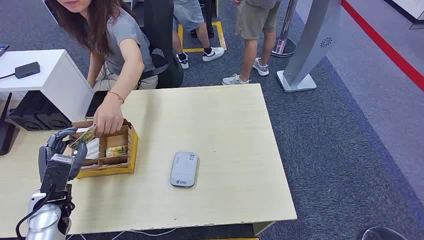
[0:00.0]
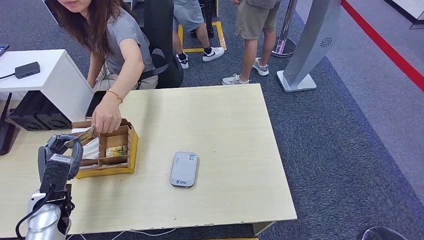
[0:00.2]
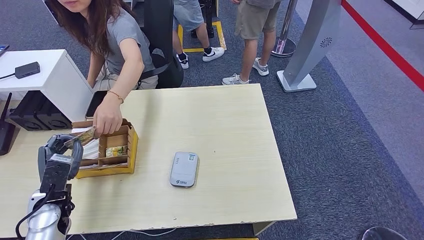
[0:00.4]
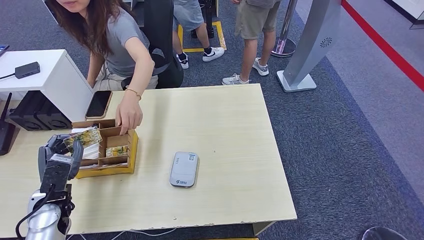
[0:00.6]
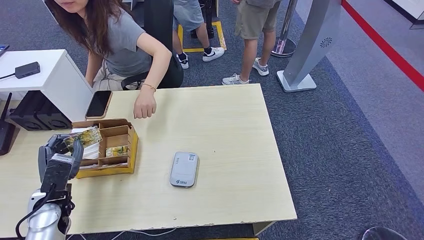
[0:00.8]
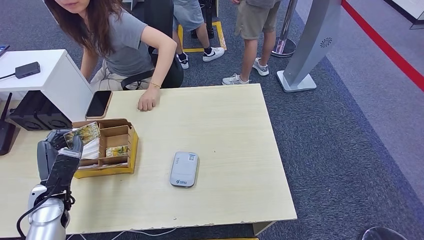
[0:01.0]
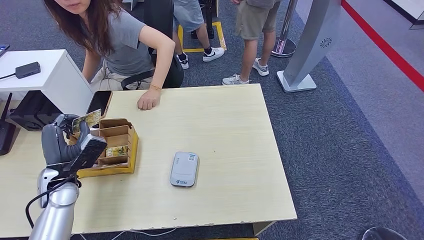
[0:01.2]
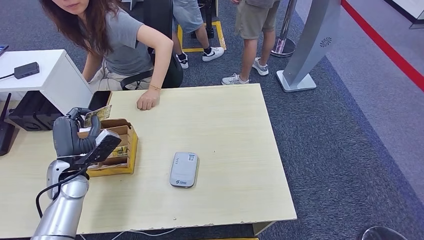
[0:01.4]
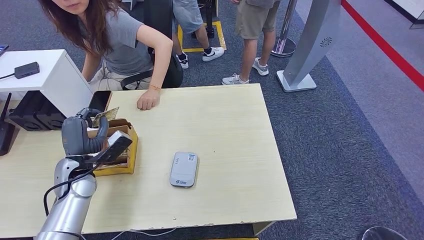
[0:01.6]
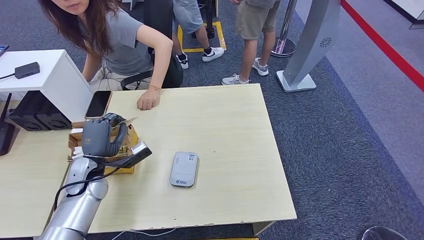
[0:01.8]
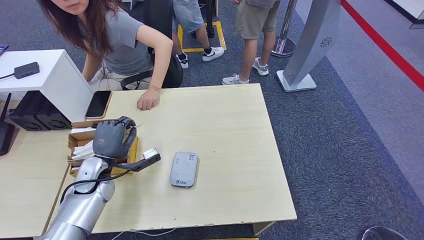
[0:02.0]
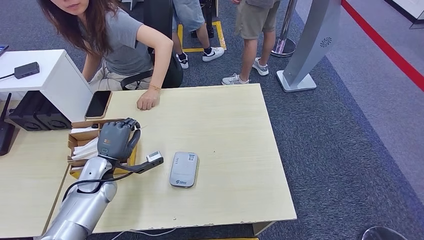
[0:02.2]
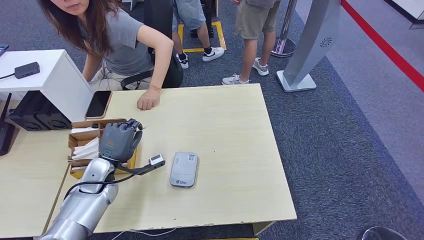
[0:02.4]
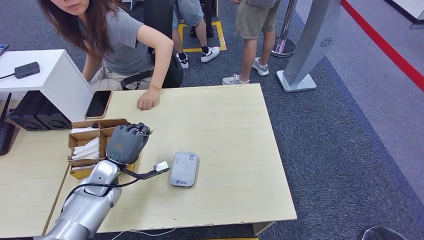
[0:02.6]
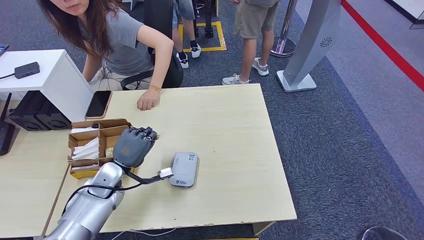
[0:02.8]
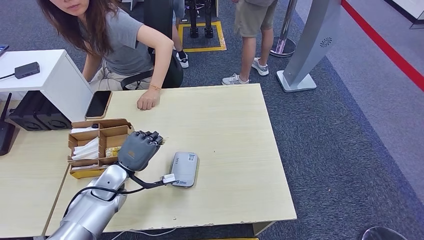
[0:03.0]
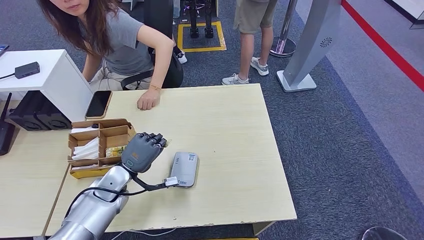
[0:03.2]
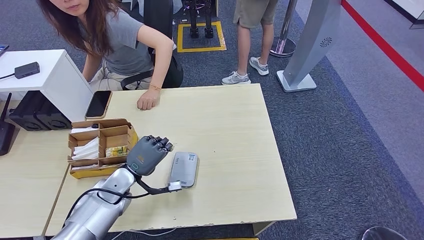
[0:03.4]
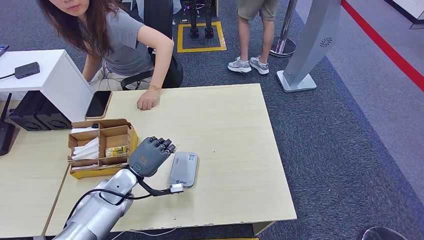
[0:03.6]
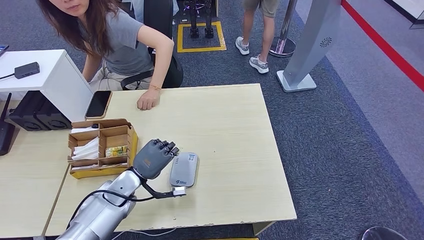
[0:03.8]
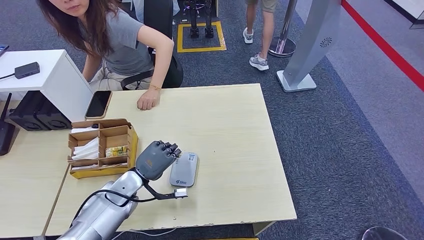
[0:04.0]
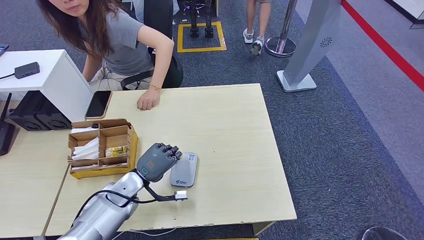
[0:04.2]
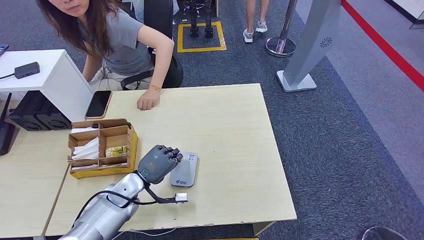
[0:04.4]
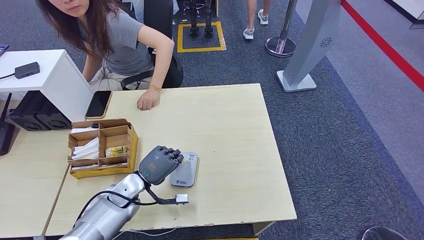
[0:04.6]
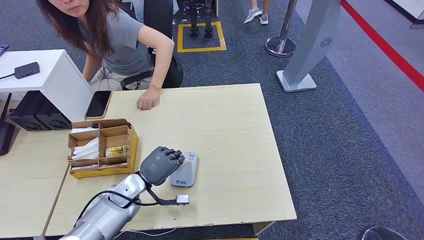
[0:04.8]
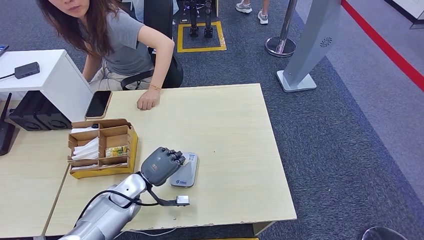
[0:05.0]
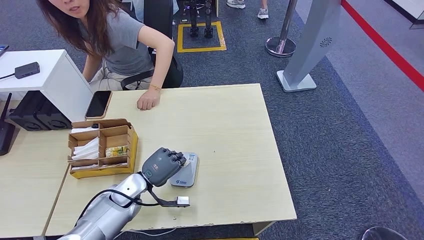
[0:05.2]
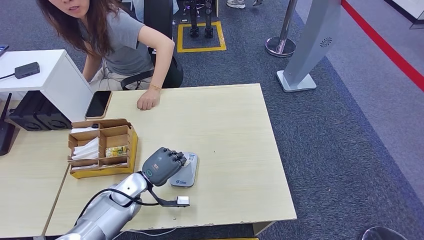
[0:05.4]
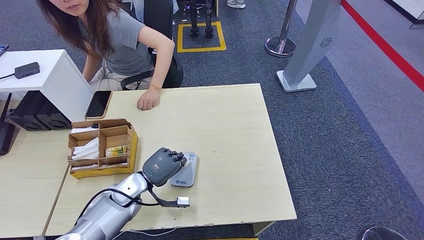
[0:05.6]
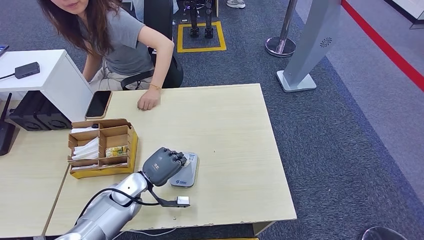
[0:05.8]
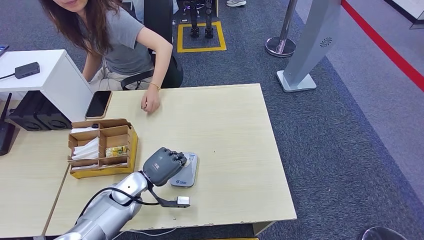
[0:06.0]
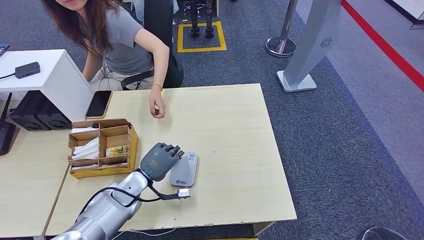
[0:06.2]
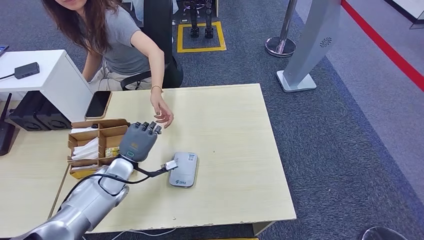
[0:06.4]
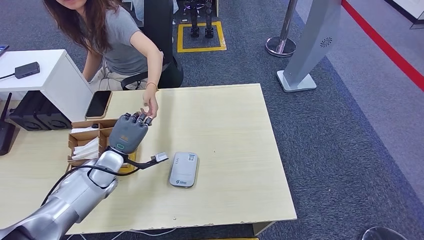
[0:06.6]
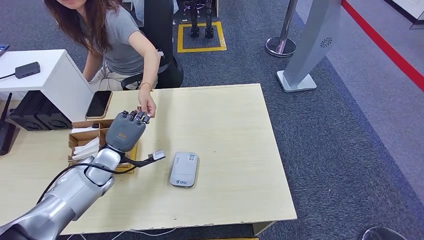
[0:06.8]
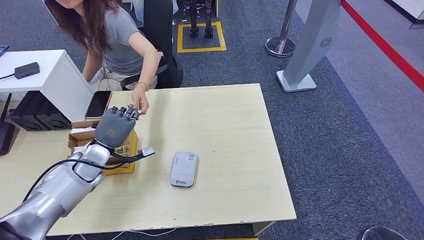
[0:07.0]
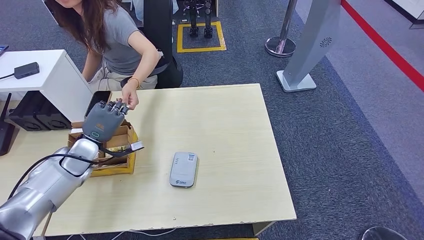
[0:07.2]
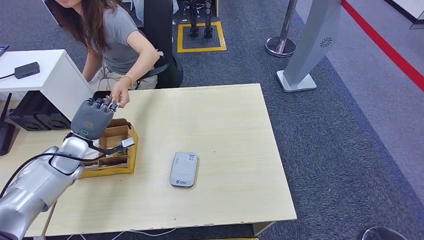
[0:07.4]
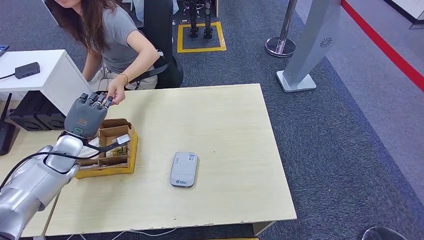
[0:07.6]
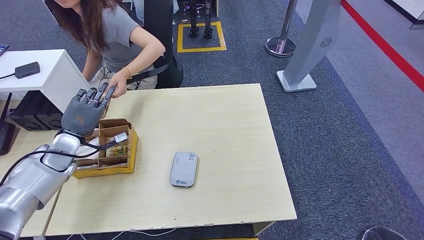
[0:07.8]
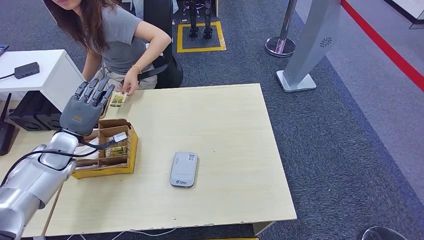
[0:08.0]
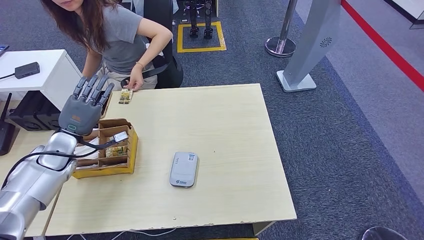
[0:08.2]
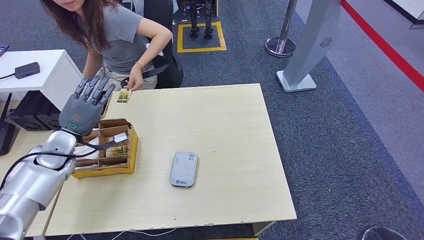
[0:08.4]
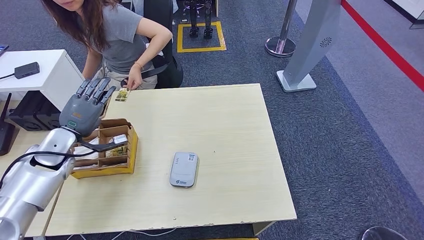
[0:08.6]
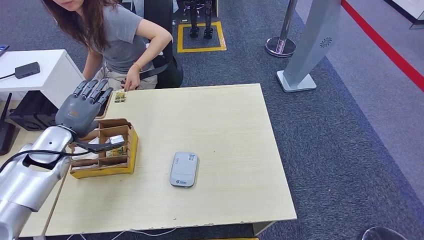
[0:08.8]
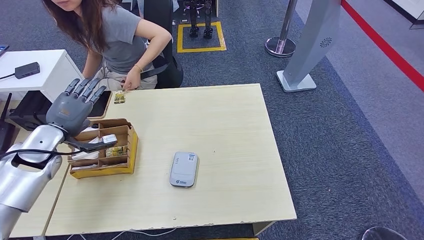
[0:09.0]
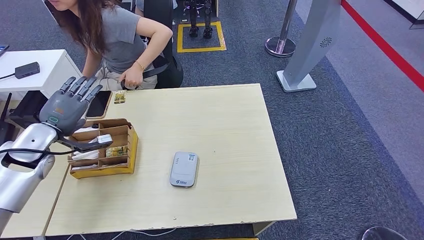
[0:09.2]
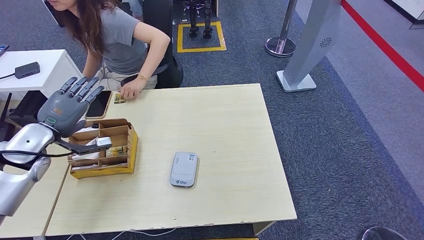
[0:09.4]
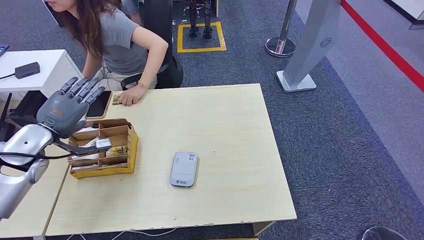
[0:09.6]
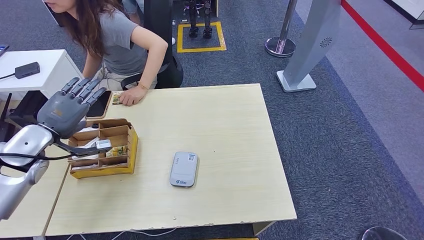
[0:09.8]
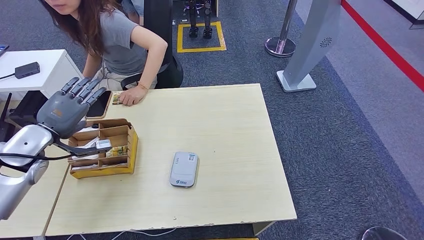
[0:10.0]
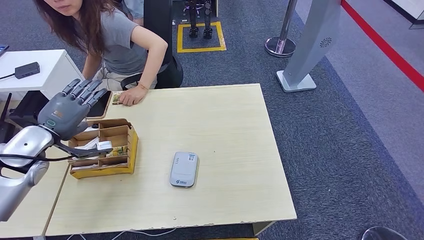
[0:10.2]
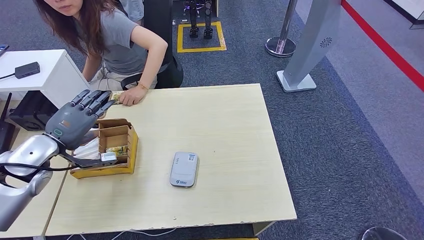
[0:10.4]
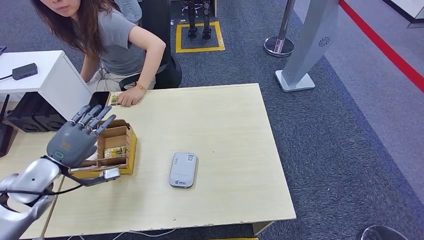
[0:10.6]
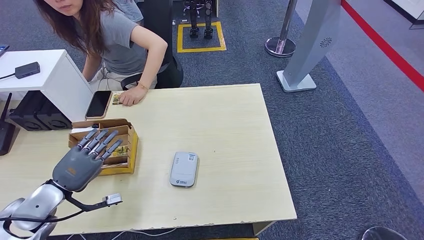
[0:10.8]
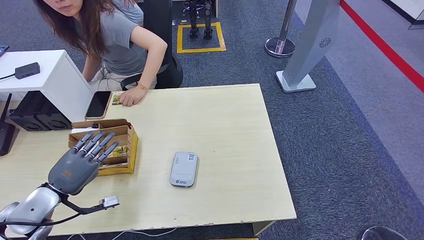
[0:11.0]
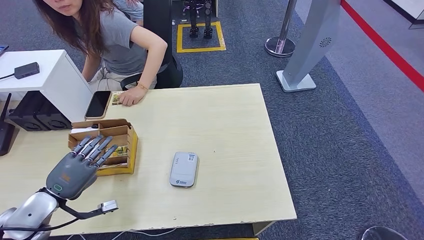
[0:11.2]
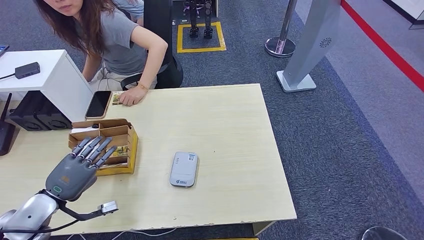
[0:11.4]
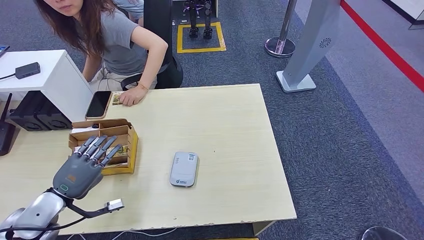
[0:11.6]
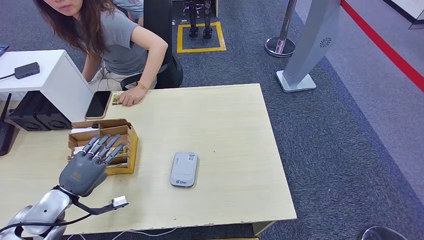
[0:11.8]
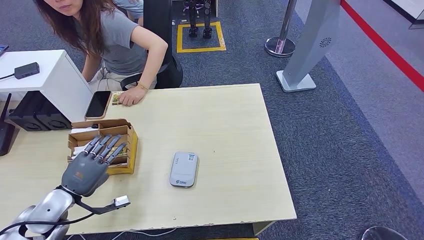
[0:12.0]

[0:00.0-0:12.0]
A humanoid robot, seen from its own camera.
Step, 0:00.0 to 0:00.8: Take the ID card from the person's hand.
Step, 0:02.4 to 0:05.4: Place the ID card on the card reader.
Step, 0:06.4 to 0:09.2: Hand the ID card to the person.
0:01.6 to 0:03.0: The left hand is displaced to the right by roughly 10 cm.
0:03.0 to 0:04.4: The hands make only small movements.
0:04.4 to 0:06.0: The hands make only small movements.
0:06.0 to 0:07.6: The left hand shifts roughly 20 cm to the left, upward and forward.
0:07.6 to 0:09.0: The left hand moves upward, about 5 cm.
0:09.0 to 0:10.4: The hands move only a little.
0:10.4 to 0:12.0: The left hand shifts approximately 15 cm downward and backward.

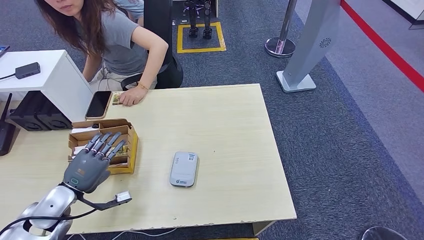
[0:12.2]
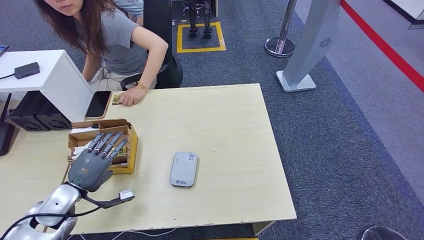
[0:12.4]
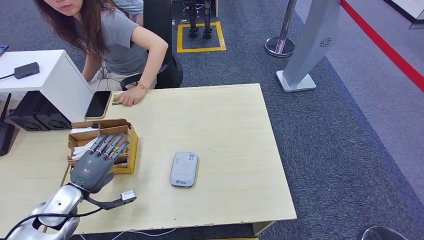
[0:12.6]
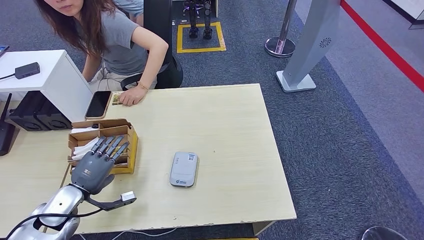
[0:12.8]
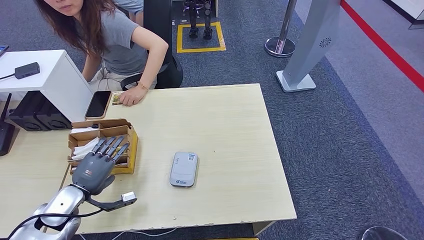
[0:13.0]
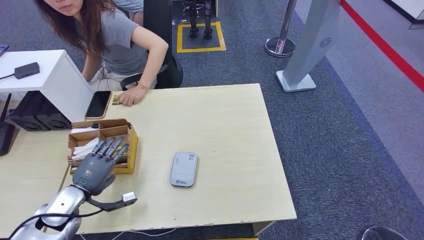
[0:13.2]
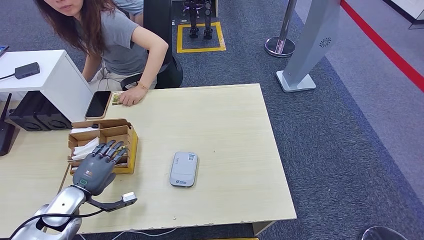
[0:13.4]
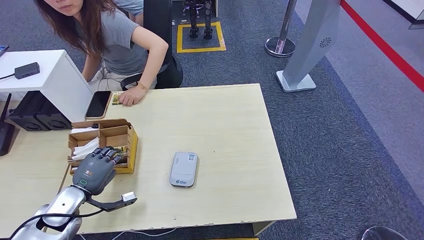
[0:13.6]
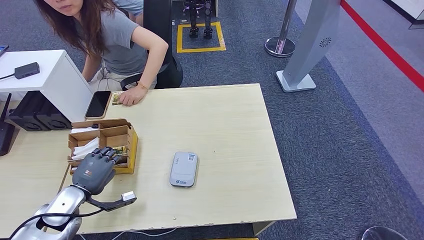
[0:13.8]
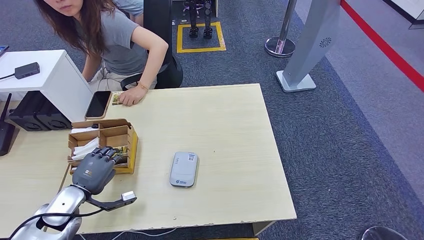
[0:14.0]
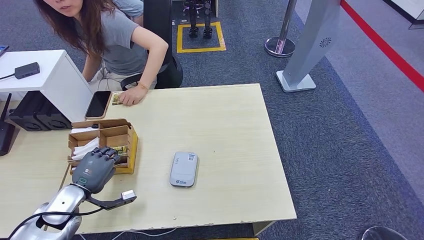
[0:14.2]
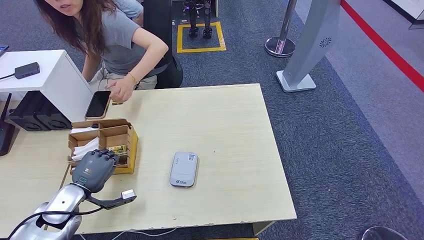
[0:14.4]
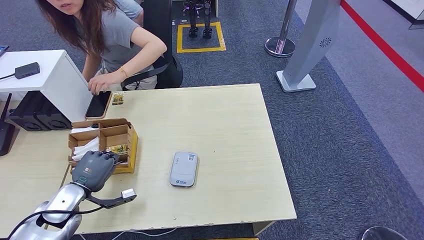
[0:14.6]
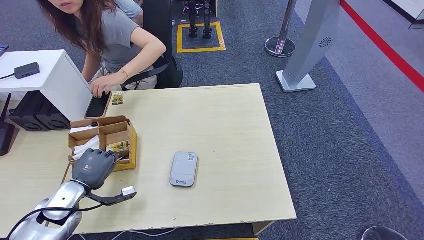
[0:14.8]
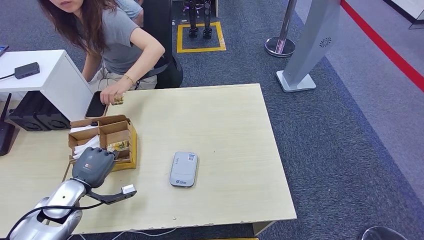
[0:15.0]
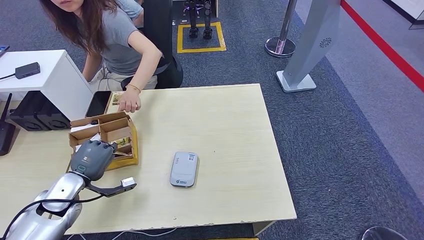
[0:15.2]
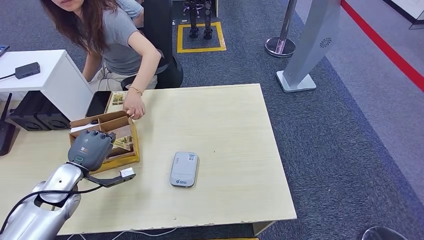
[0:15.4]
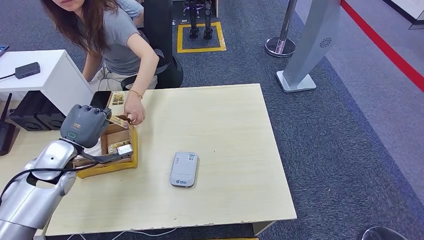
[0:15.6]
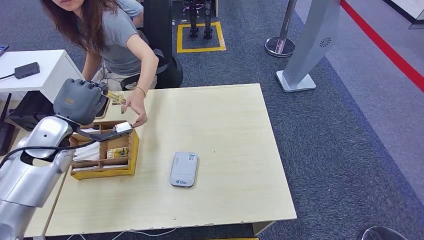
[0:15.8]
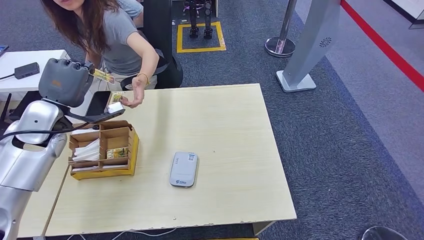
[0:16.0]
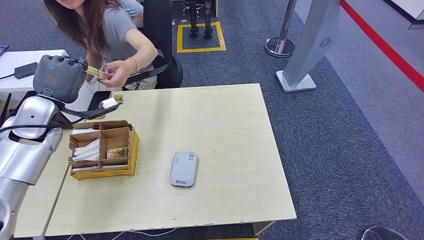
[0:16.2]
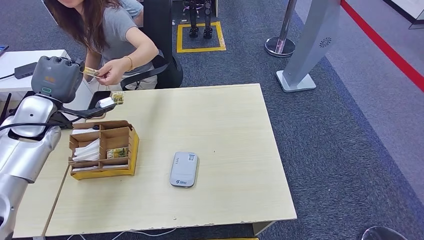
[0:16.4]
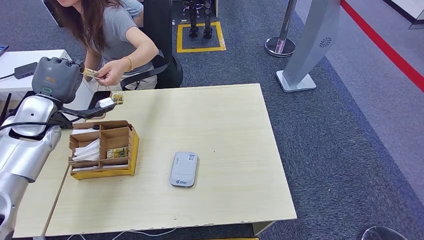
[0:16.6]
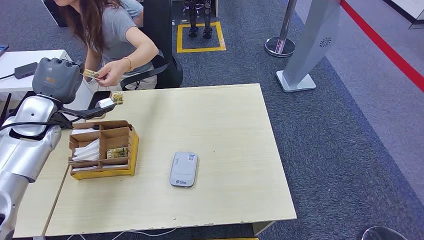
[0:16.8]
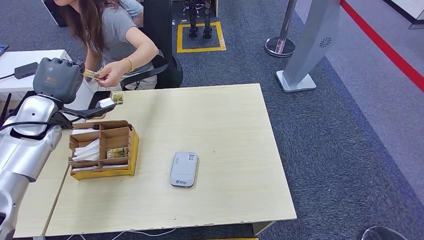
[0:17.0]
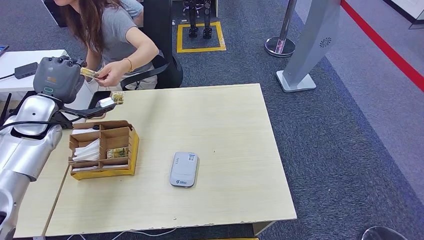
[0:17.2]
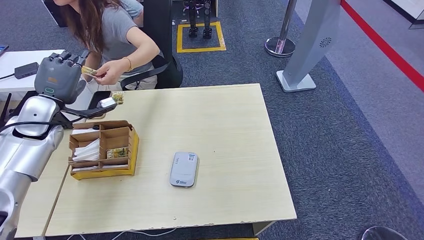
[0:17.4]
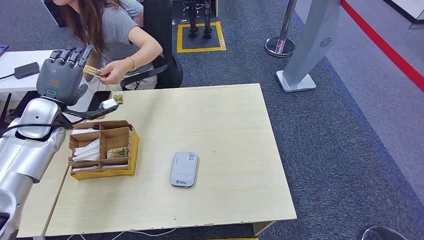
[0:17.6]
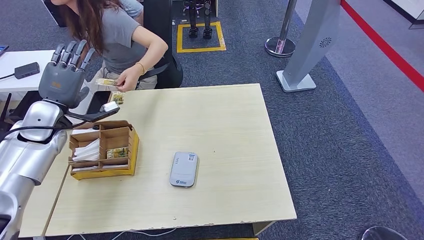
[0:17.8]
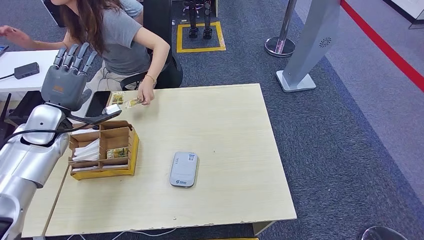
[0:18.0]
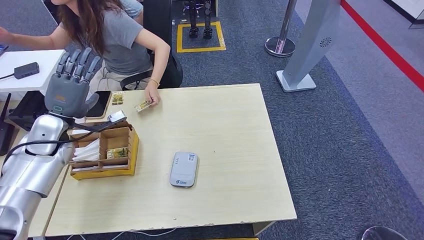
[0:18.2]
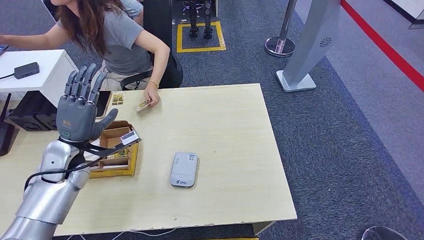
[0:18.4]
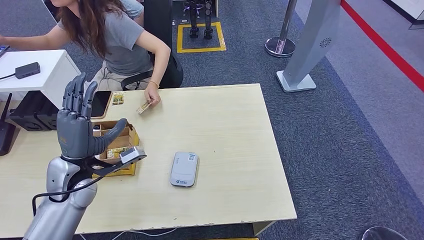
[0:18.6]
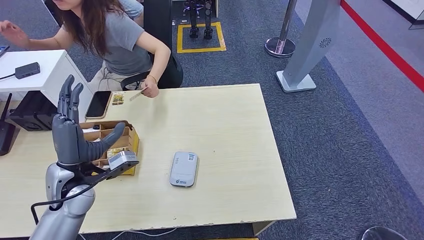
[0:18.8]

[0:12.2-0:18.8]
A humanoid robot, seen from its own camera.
Step, 0:12.2 to 0:15.2: Pick up the room key from the key card box.
0:12.2 to 0:13.8: The hands move only a little.
0:13.8 to 0:15.4: The left hand moves some 5 cm.
0:15.4 to 0:17.2: The left hand shifts some 20 cm upward and forward.
0:17.2 to 0:18.8: The left hand travels backward, to the right and downward by about 20 cm.
